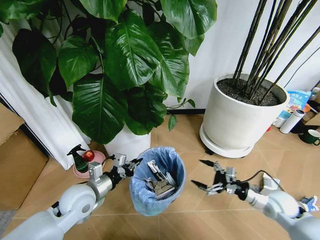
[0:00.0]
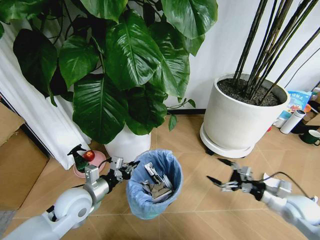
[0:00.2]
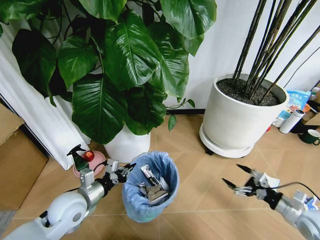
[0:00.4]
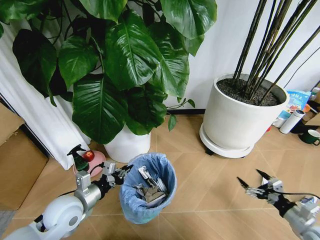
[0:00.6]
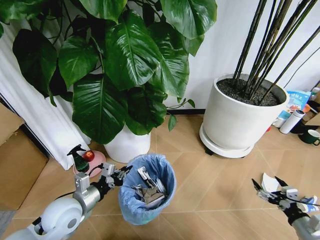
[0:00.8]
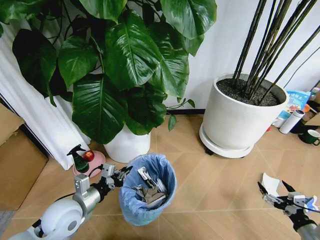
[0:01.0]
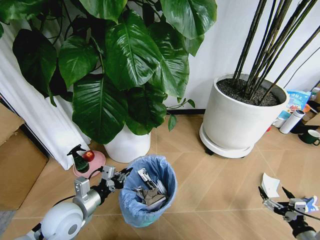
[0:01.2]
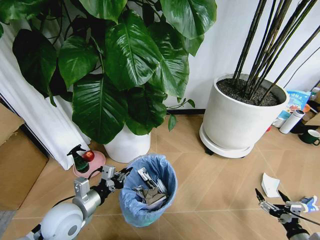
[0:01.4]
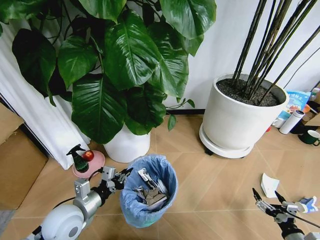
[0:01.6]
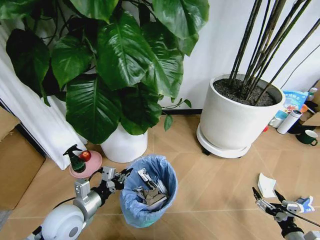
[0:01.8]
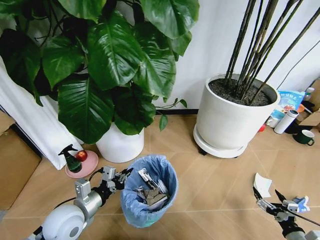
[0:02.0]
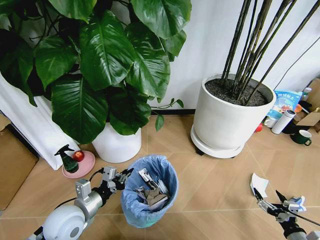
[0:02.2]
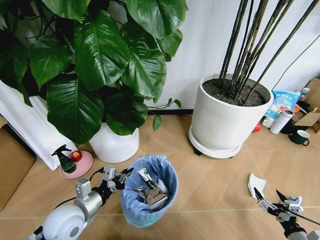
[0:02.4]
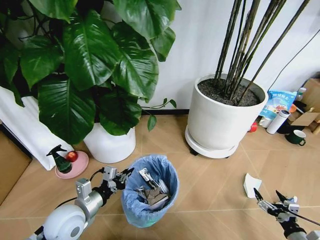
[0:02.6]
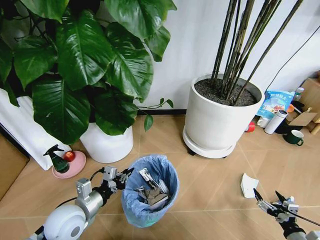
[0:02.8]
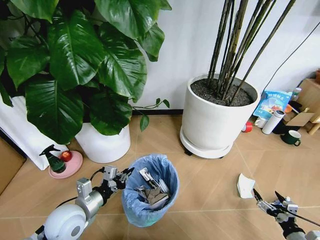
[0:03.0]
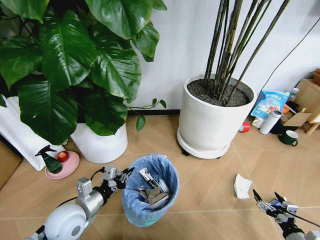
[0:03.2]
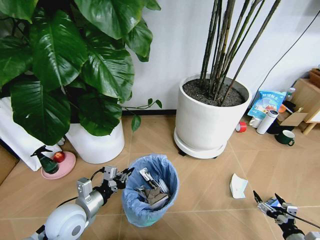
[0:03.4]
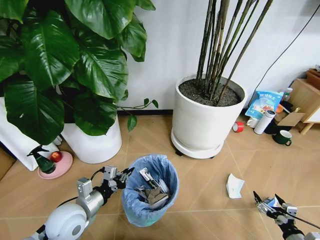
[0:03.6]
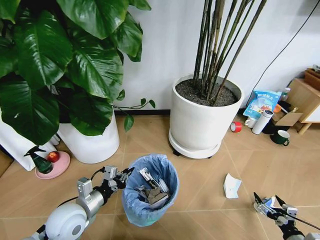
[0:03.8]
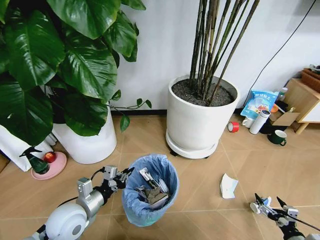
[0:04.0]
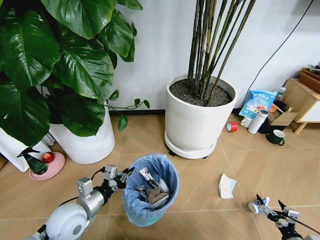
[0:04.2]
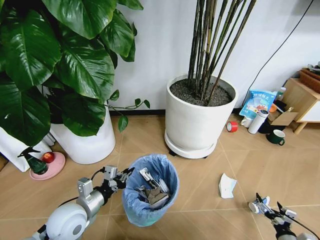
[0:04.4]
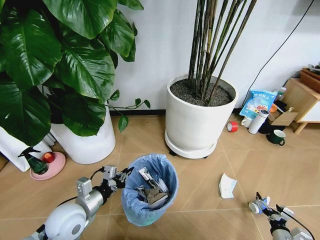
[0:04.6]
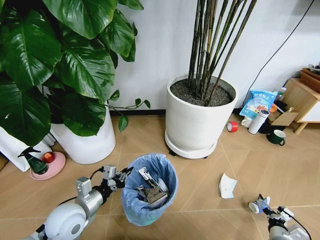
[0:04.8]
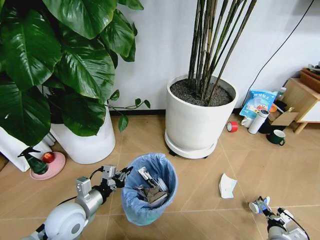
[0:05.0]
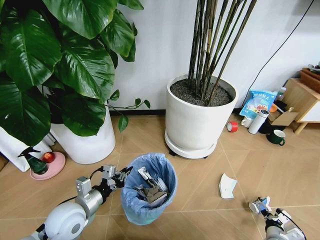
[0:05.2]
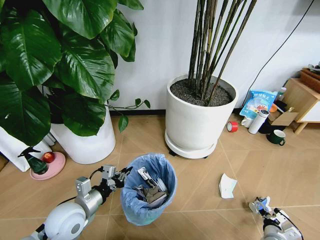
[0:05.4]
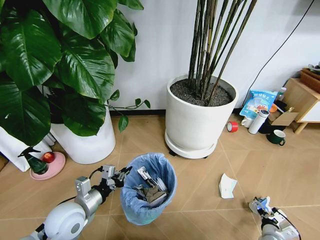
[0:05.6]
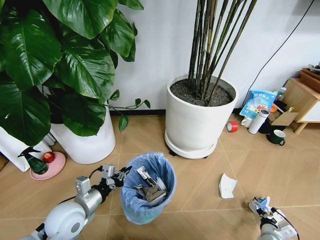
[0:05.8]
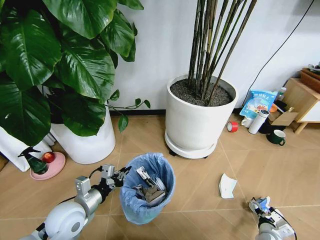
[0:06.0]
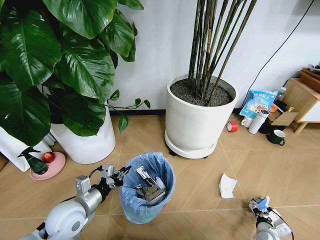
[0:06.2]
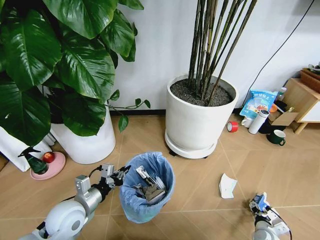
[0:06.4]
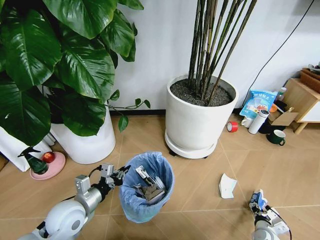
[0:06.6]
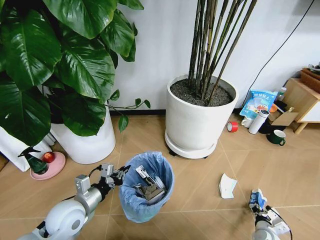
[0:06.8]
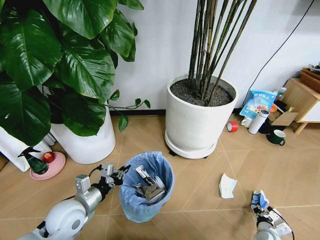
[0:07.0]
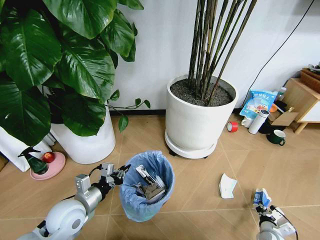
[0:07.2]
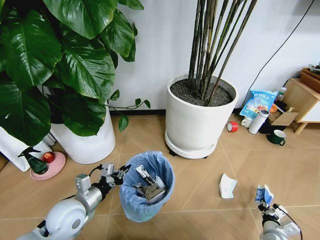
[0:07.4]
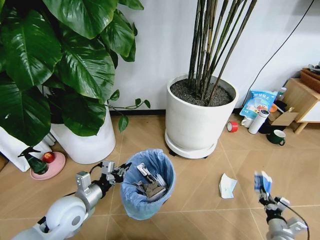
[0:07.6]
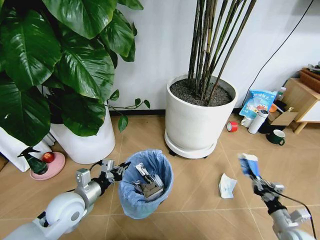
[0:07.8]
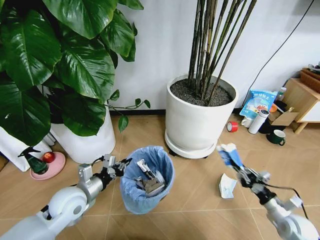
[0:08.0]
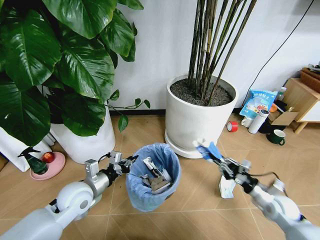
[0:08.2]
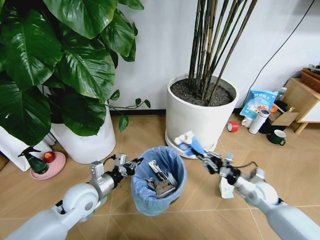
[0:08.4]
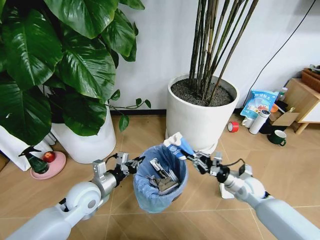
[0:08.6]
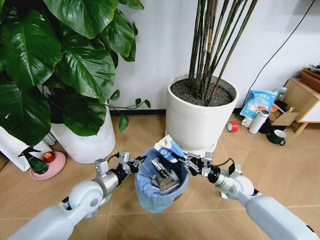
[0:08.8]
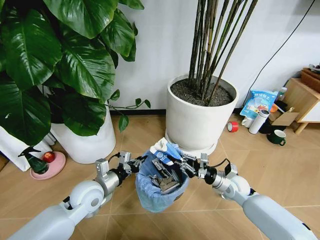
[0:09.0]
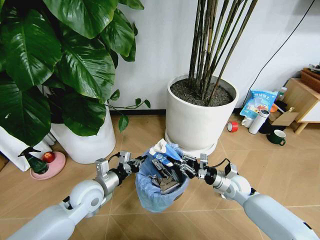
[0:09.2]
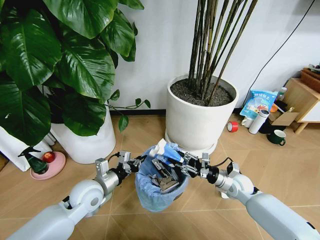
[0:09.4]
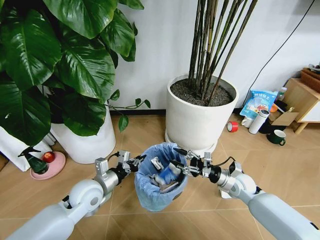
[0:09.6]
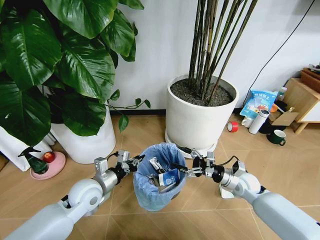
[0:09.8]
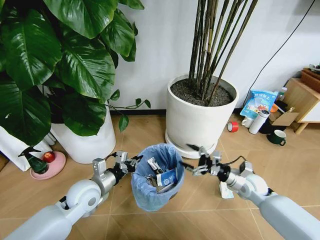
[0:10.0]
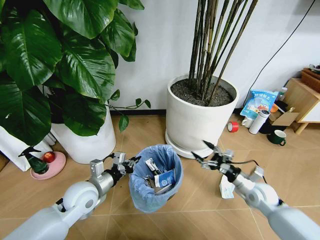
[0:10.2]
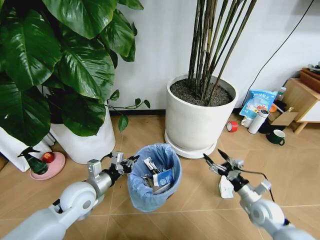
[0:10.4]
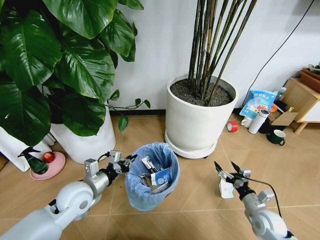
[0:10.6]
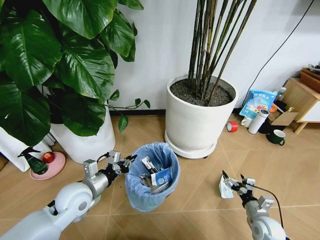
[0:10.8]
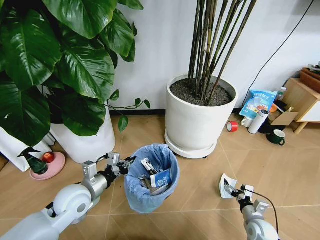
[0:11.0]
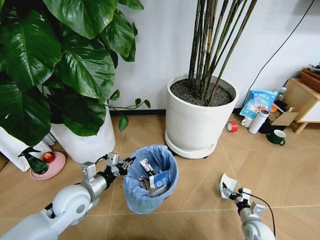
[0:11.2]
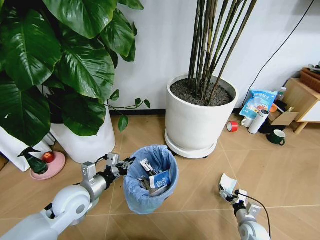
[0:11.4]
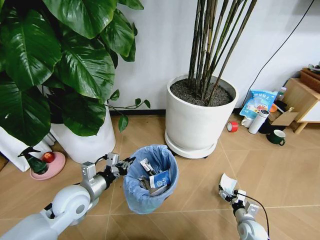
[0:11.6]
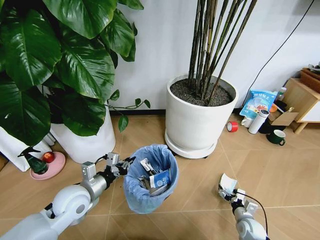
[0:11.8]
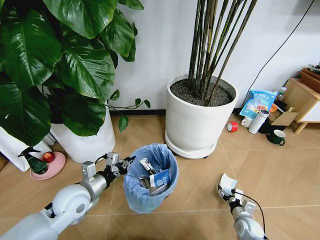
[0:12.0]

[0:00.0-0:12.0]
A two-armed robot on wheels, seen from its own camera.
Task of the whole recording: Pick up the trash bin and place the garbage on the floor into it.
0:00.0 to 0:01.6: The left gripper moves backward, roughly 5 cm. Meanwhile the right gripper shifts about 20 cm backward, downward and to the right.
0:04.4 to 0:06.0: The right gripper shifts roughly 10 cm forward and downward.
0:06.0 to 0:07.6: The right gripper travels upward by roughly 5 cm, and closes up.
0:07.6 to 0:09.0: The left gripper moves some 5 cm. Meanwhile the right gripper goes about 25 cm forward, to the left and upward.
0:09.0 to 0:10.4: The right gripper heads backward and to the right, covering roughly 10 cm, and opens its fingers.
0:10.4 to 0:12.0: The right gripper is displaced downward by about 15 cm.

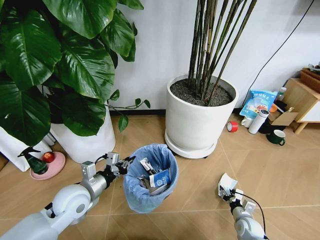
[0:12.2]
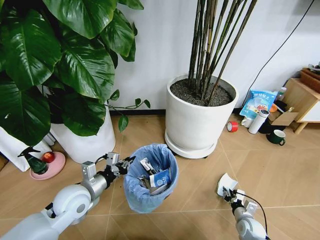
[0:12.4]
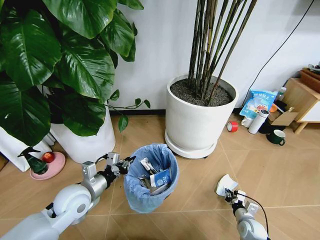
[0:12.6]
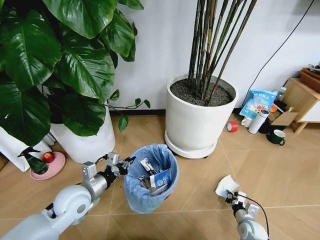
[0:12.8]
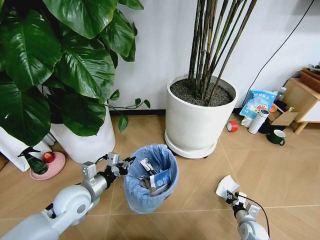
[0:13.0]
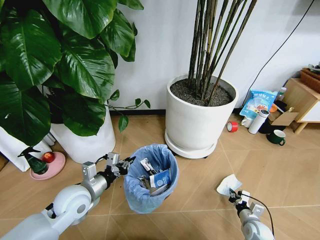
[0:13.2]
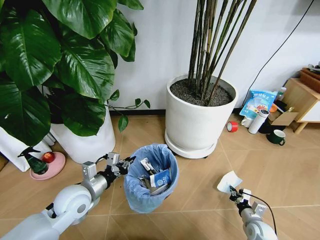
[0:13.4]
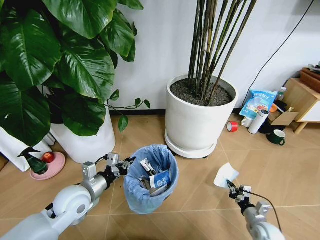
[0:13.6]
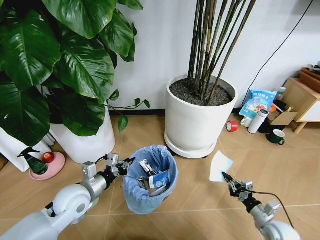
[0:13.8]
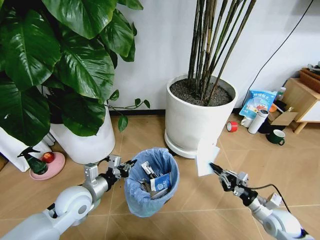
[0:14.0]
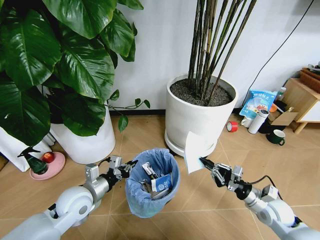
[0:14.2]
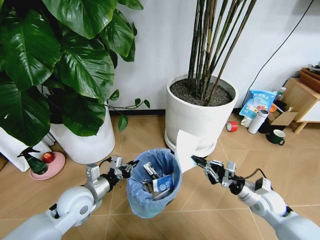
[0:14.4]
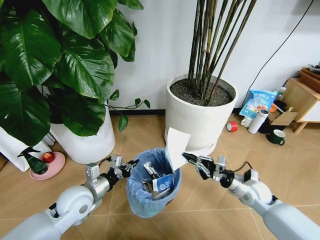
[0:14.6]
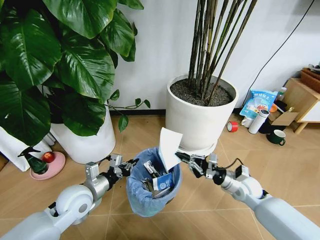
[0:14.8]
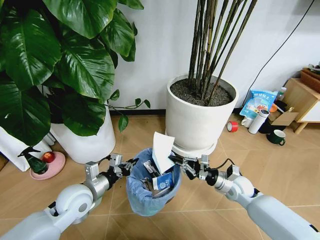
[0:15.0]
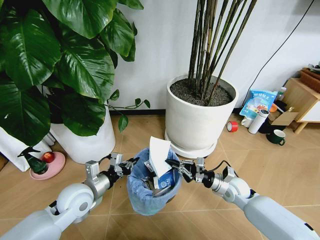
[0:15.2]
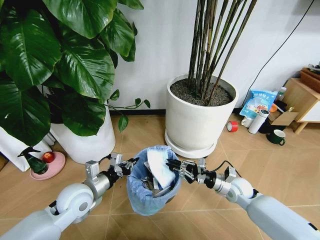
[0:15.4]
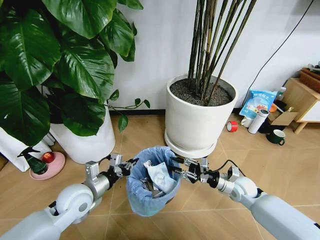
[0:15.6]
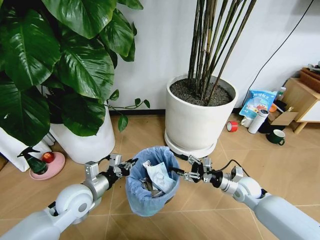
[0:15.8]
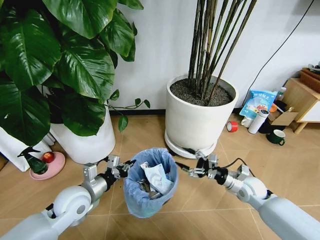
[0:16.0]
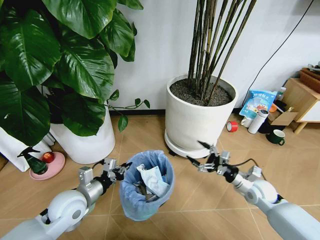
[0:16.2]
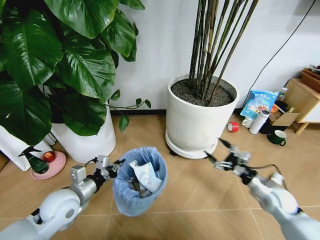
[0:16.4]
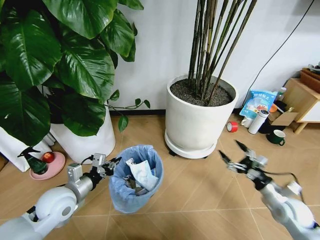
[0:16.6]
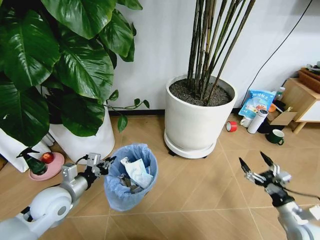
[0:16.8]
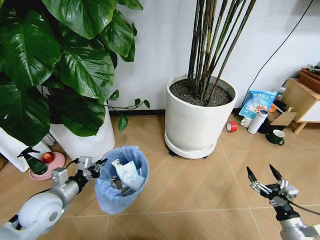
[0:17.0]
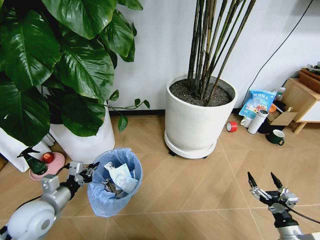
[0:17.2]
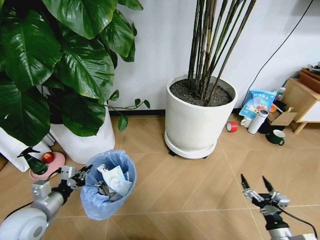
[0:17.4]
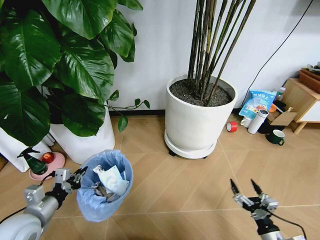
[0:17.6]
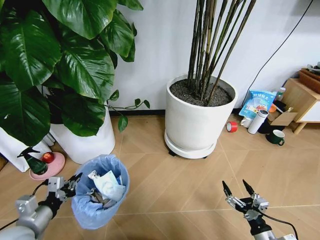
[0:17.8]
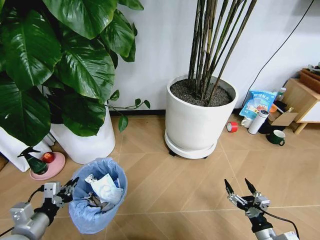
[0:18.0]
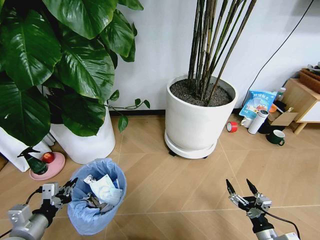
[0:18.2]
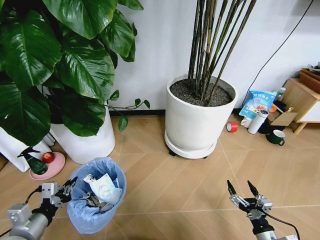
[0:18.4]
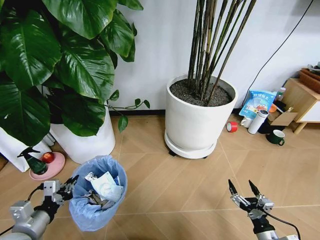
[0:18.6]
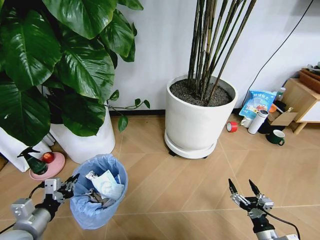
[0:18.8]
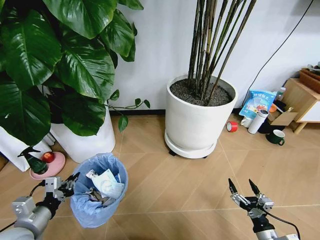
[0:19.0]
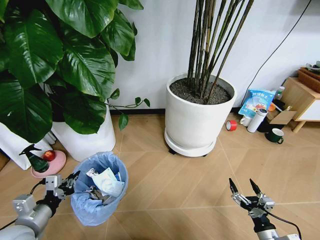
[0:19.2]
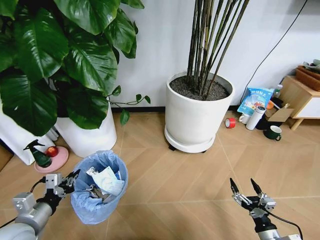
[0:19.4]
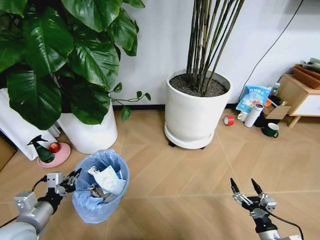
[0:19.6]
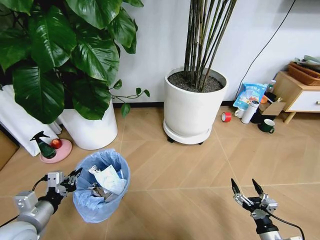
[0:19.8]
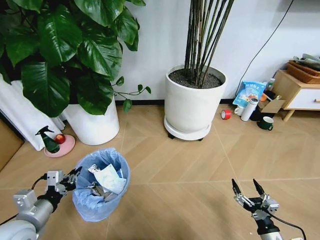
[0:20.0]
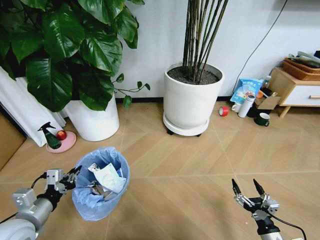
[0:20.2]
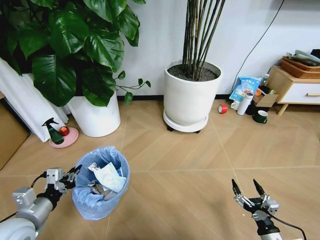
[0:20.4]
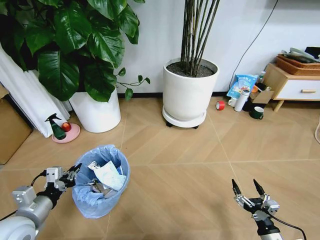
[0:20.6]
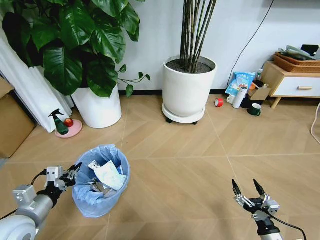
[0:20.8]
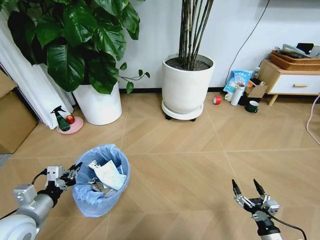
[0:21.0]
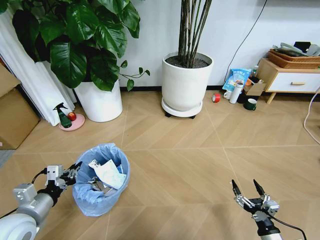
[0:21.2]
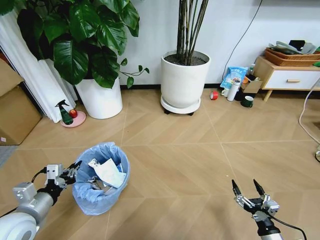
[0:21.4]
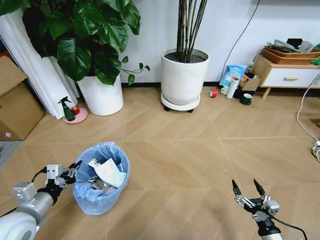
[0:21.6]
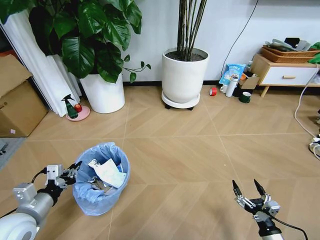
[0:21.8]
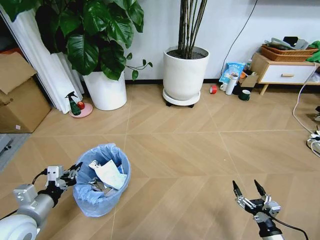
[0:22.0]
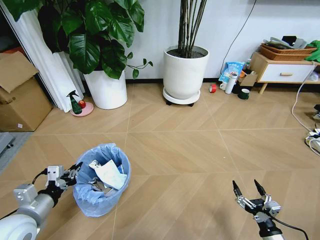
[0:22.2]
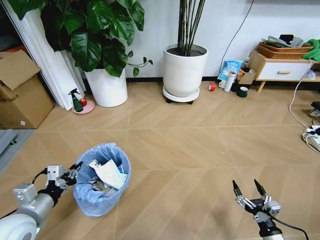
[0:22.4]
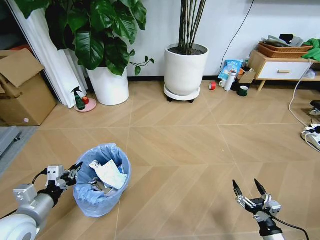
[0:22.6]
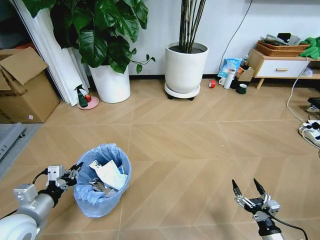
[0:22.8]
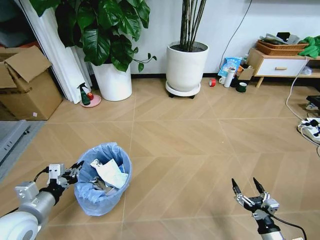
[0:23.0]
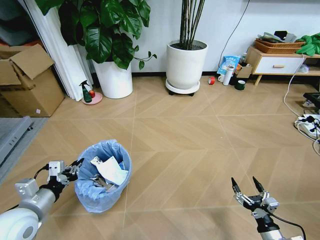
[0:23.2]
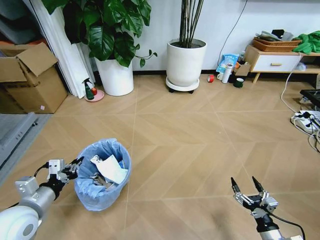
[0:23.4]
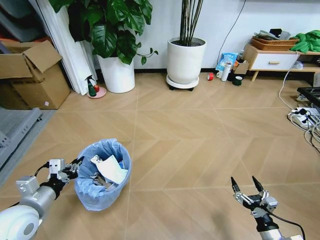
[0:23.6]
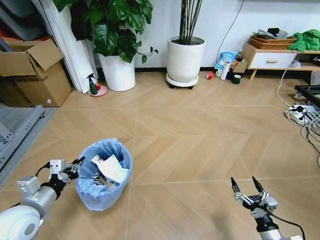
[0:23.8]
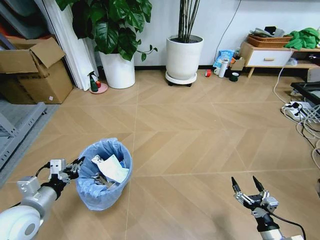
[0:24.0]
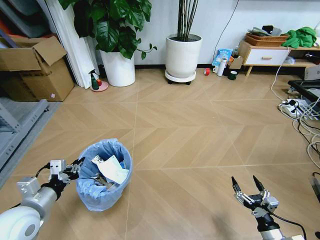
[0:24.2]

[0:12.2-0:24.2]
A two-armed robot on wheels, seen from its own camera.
Task of the whole recording: Pick up the trash bin and place the garbage on the floor into it.
0:12.2 to 0:13.8: The right gripper heads upward and to the right, covering approximately 10 cm, and closes.
0:13.8 to 0:15.2: The right gripper travels forward, to the left and upward by about 20 cm.
0:15.2 to 0:16.6: The left gripper heads to the left, covering roughly 5 cm, while the right gripper goes approximately 20 cm to the right and backward, and opens up.
0:16.6 to 0:18.2: The left gripper goes some 15 cm backward and to the left; the right gripper shifts about 15 cm backward, to the left and downward.
